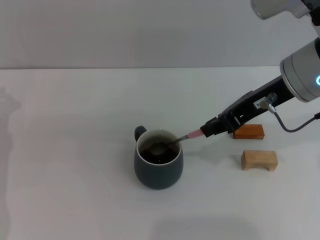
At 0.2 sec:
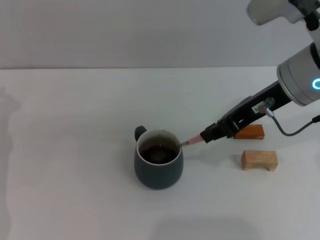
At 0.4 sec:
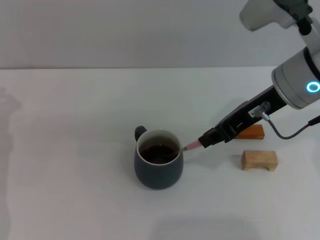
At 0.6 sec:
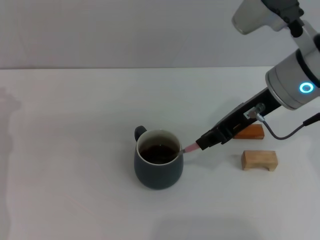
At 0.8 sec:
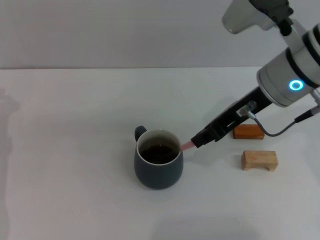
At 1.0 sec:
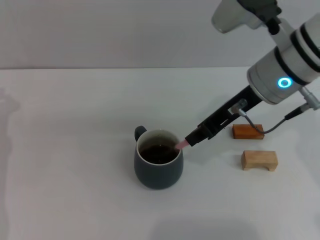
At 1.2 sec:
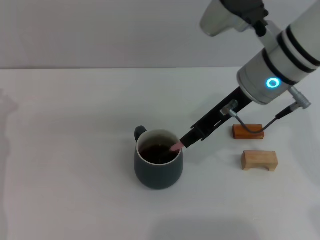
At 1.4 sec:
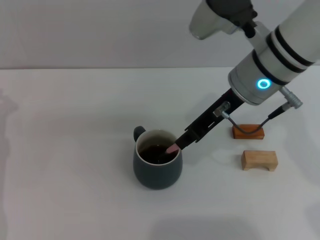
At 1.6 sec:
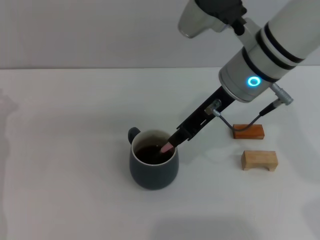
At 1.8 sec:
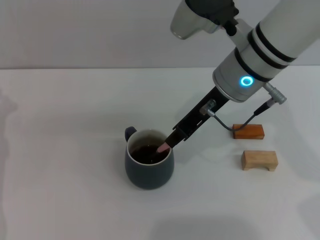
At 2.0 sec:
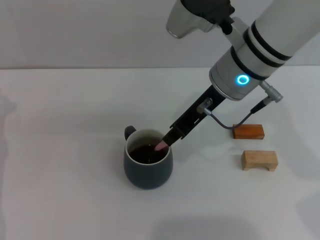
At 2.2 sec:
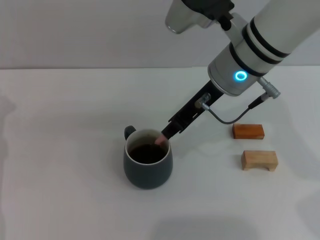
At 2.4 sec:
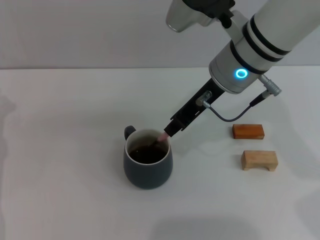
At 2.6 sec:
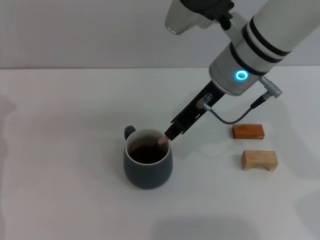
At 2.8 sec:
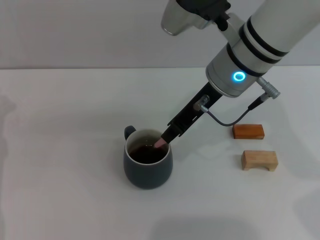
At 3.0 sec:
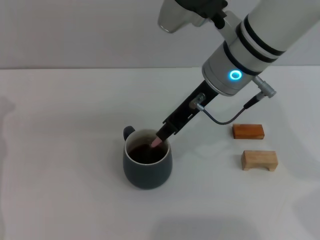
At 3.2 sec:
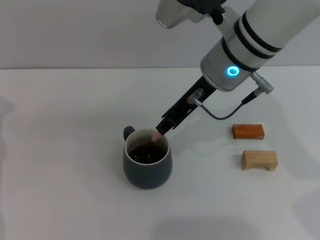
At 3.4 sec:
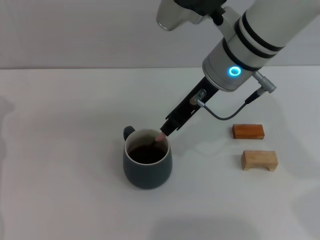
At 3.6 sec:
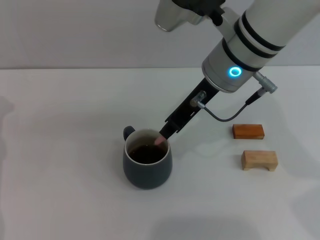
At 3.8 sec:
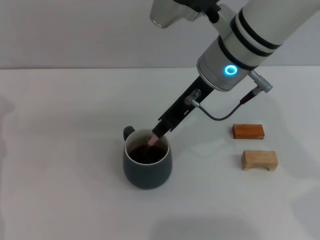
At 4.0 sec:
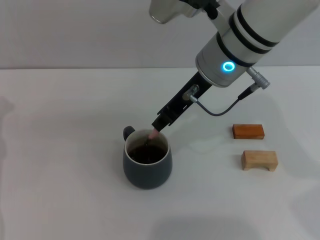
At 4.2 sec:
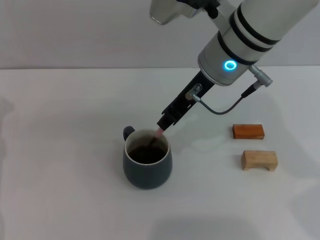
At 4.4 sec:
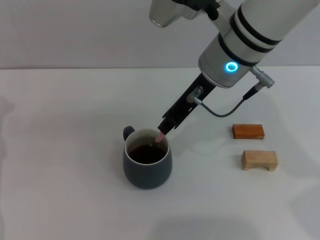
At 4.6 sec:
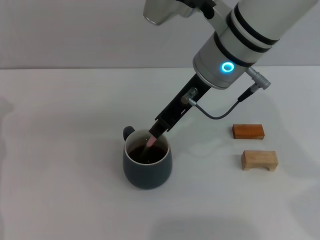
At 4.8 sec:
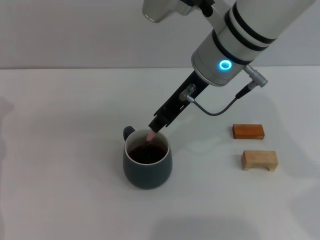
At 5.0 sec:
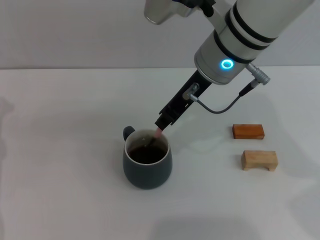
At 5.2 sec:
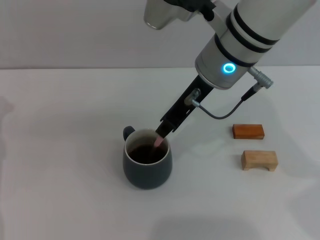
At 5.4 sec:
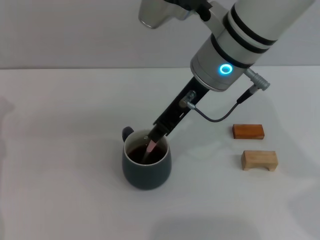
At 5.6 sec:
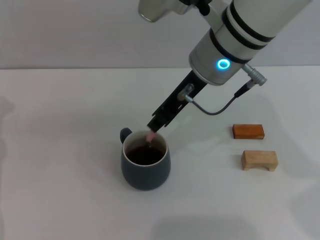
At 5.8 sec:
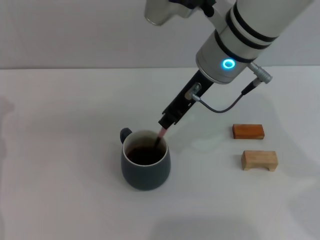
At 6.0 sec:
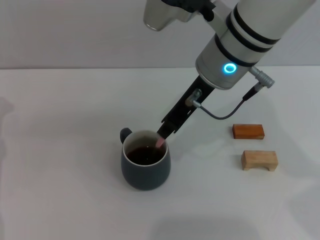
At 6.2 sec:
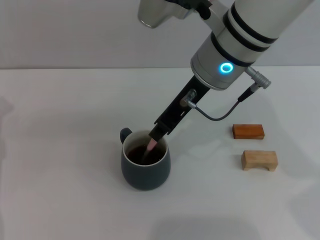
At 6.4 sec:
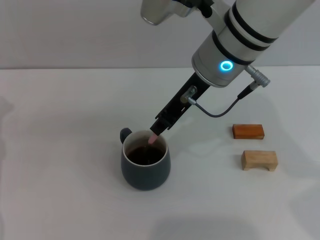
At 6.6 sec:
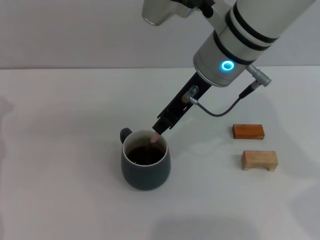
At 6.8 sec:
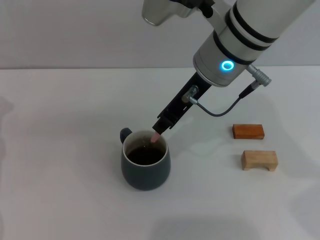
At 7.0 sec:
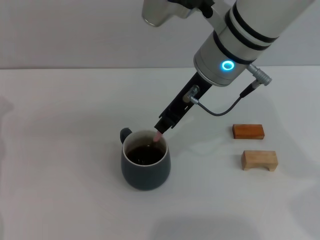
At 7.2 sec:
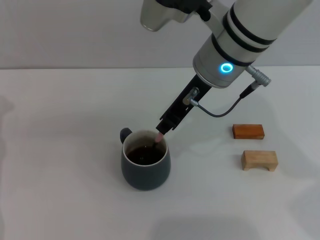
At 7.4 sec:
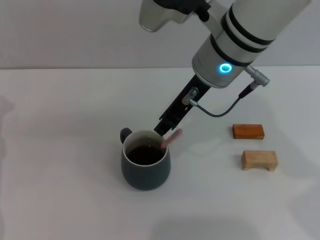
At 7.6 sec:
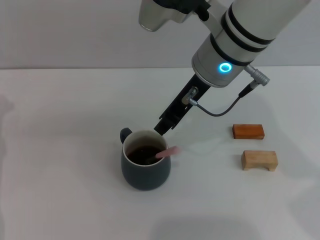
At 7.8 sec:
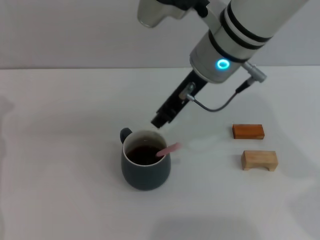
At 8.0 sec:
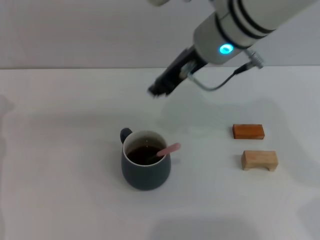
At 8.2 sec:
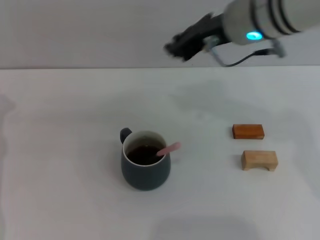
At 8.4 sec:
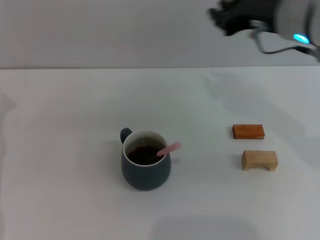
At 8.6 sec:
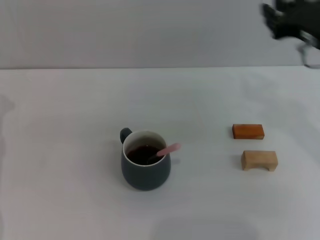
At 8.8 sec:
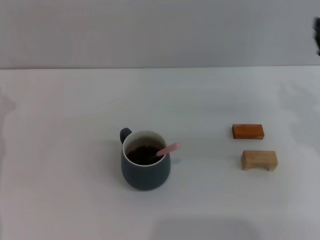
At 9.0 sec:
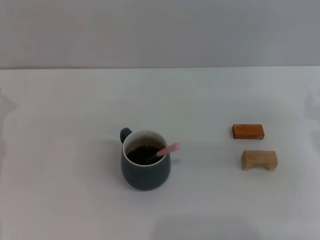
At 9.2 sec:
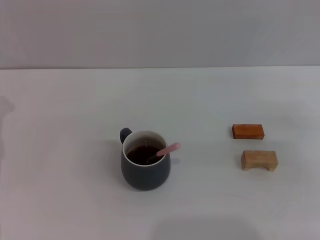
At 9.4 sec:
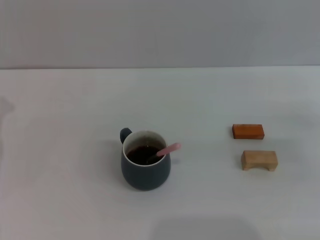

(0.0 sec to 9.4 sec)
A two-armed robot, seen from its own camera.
Task of the whole recording: Move the grey cup to the center, lift the pink spoon, stir it three times in the cup, and put the spoon into the cup.
Step, 0.0 sec - 7.6 sec: Stir the coffee in the cup with the right gripper.
0.0 sec - 1.6 sec: The right gripper is displaced to the left by approximately 5 cm.
1.6 sec - 4.8 sec: The grippers move only a little.
4.8 sec - 6.2 sec: Both grippers stay about where they are.
6.2 sec - 7.8 sec: There are only small adjustments of the grippers.
7.8 sec - 9.4 sec: The right gripper is displaced to the right and downward by about 30 cm.
